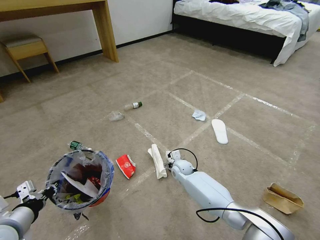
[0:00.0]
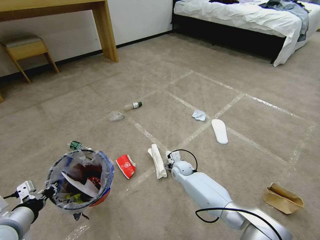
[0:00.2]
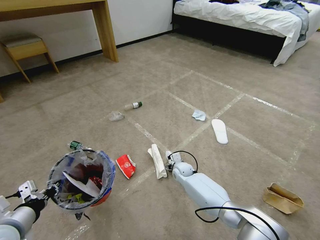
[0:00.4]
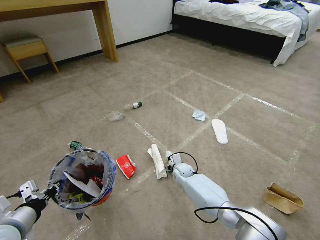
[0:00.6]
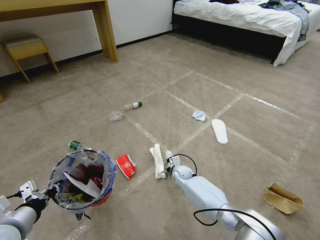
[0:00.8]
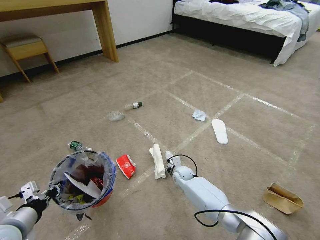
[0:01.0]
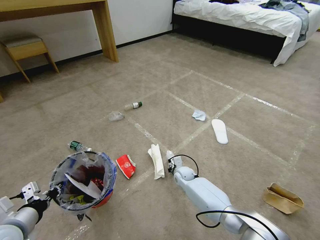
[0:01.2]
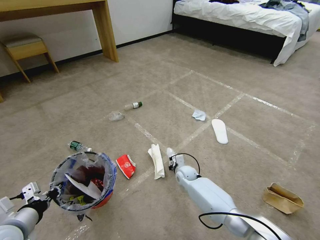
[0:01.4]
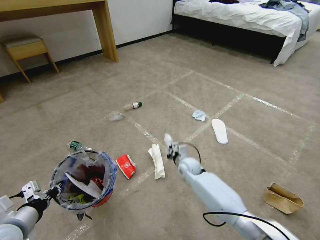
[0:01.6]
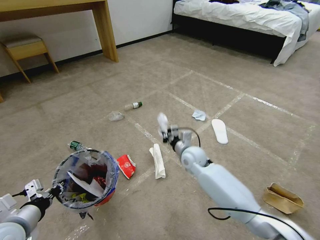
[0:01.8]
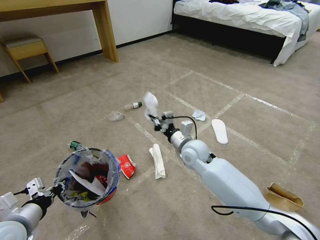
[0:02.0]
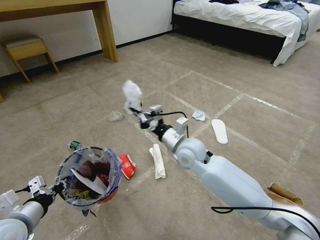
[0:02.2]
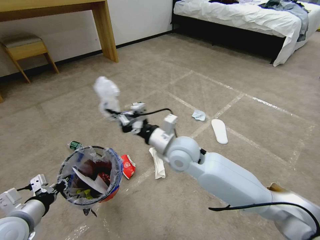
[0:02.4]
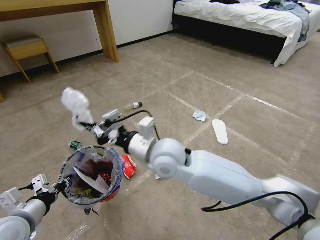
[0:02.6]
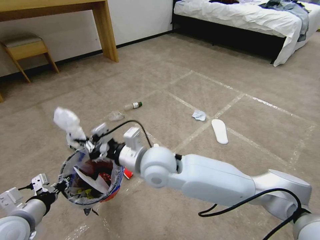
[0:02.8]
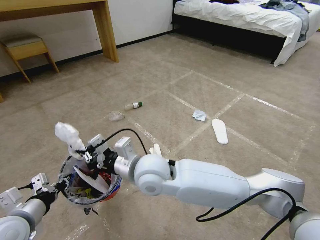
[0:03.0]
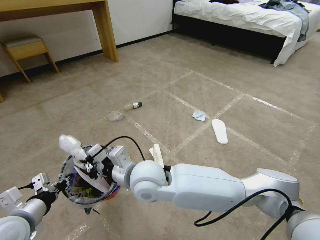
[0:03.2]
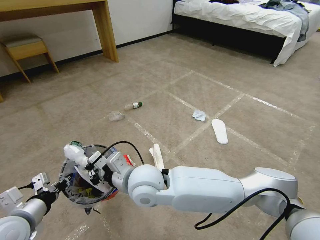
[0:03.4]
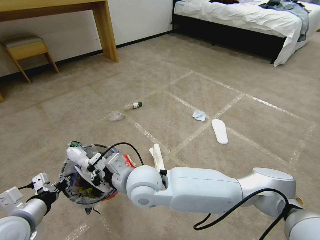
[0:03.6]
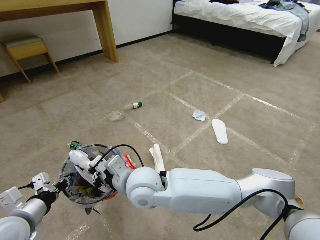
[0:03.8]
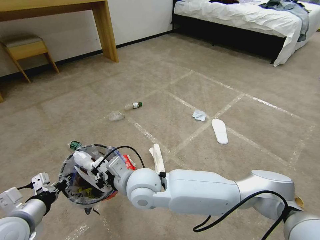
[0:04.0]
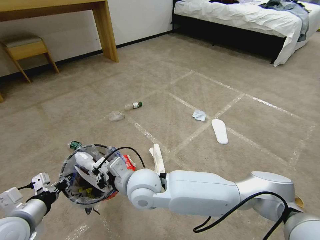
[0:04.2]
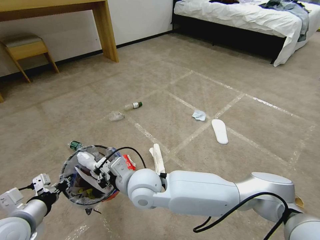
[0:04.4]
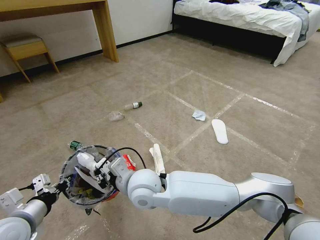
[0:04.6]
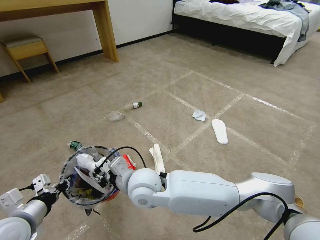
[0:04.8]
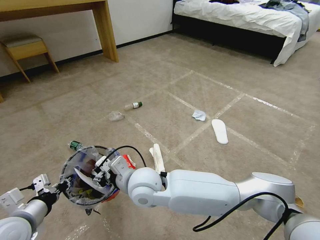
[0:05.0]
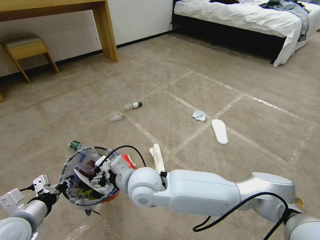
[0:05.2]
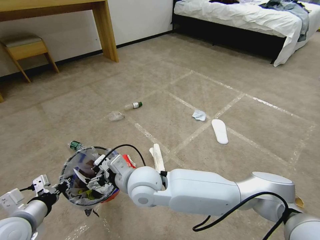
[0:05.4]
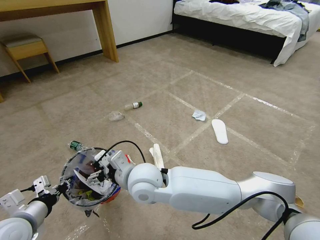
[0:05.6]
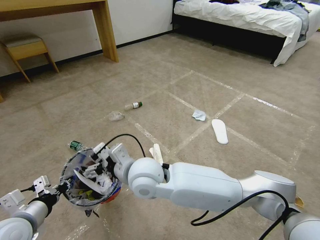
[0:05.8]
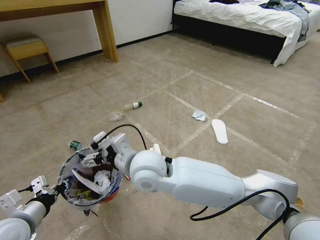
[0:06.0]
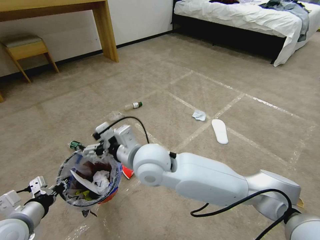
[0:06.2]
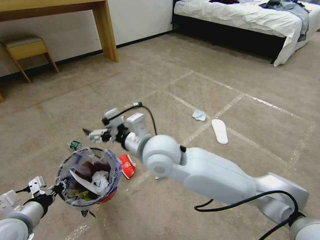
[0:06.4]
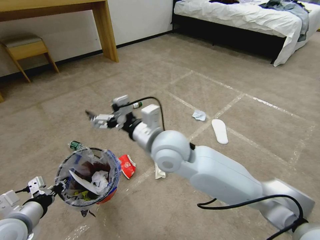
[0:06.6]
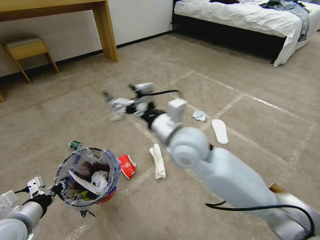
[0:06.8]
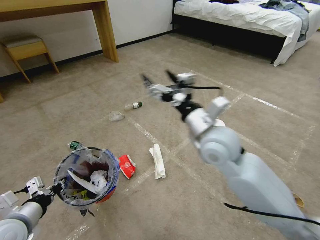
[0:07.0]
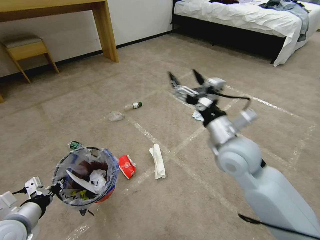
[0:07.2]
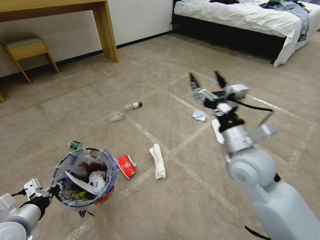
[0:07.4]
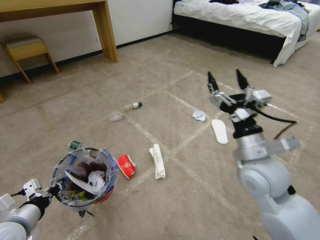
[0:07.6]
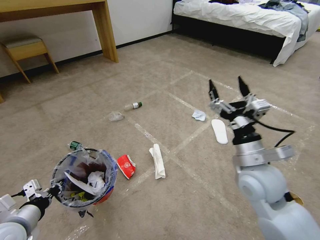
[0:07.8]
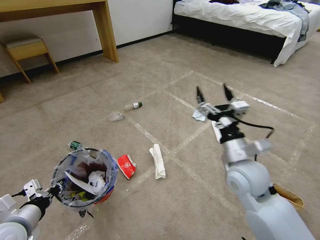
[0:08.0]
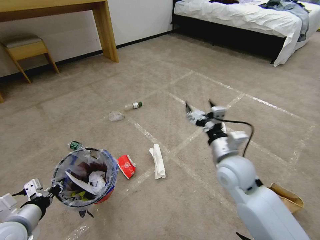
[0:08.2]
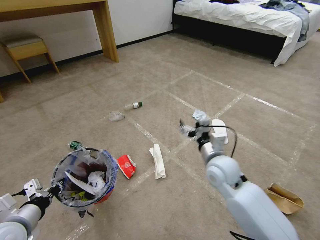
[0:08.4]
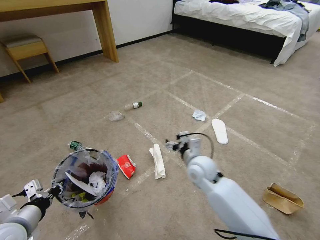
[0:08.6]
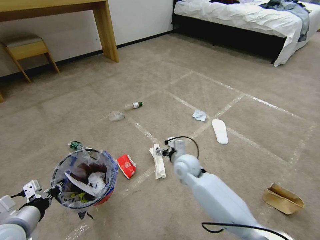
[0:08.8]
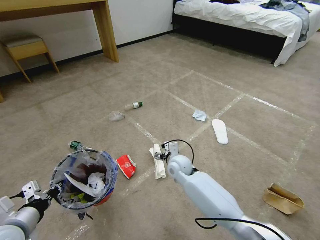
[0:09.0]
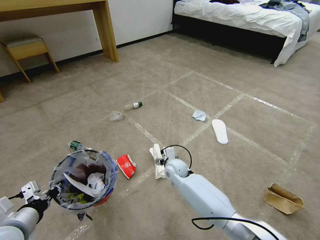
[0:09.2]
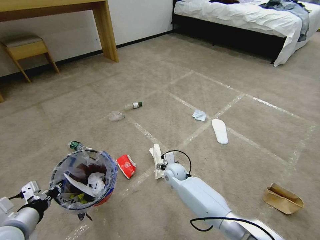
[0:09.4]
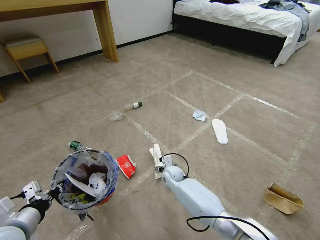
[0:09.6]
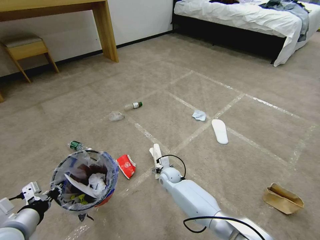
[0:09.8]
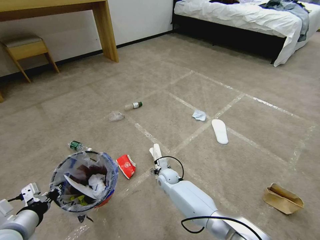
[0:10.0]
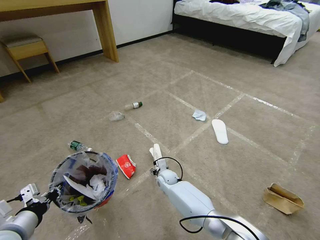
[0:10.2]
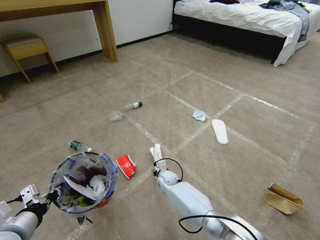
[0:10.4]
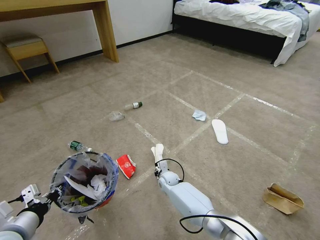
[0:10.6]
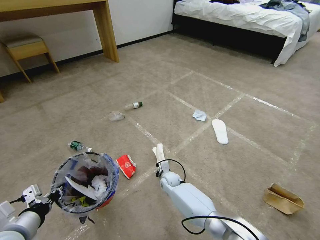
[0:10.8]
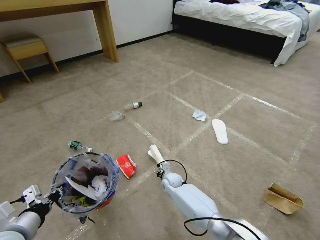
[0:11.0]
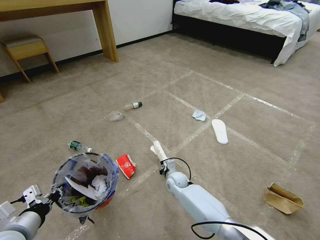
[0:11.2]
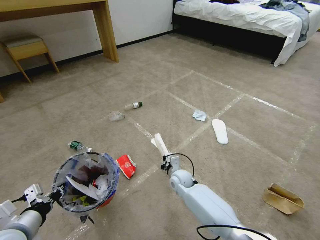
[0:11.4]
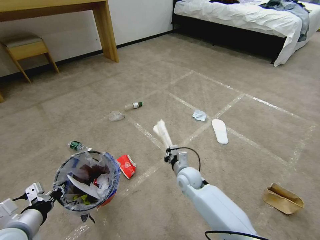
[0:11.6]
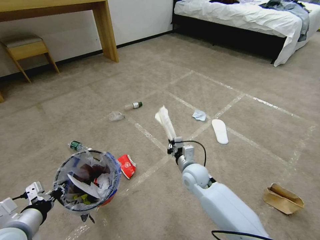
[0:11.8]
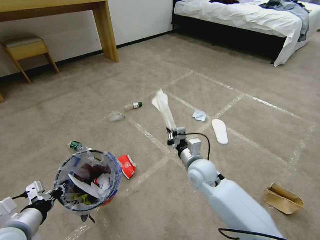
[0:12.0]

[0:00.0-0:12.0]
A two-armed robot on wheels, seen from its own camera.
Task of the whole recording: Pick up the trash bin and place the garbage on the floor into it.
0:00.0 to 0:01.6: The right gripper goes about 5 cm upward, and closes.
0:01.6 to 0:03.0: The right gripper heads upward, to the left and backward, covering roughly 30 cm.
0:03.0 to 0:04.4: The right gripper changes place by approximately 5 cm.
0:04.4 to 0:06.0: The right gripper moves upward, some 5 cm, and opens its fingers.
0:06.0 to 0:07.6: The right gripper heads to the right, covering about 30 cm.
0:07.6 to 0:09.0: The right gripper travels downward, to the left and forward by about 30 cm.
0:09.0 to 0:10.4: The right gripper is displaced downward by roughly 15 cm, and closes its fingers.
0:10.4 to 0:12.0: The right gripper moves upward and to the right, roughly 25 cm, and closes its fingers.

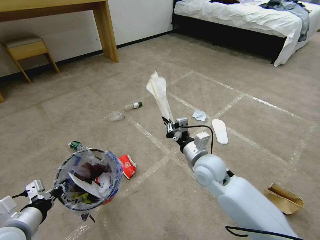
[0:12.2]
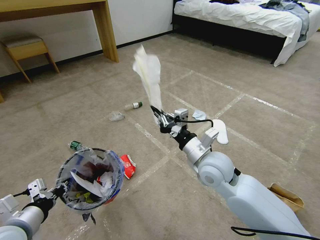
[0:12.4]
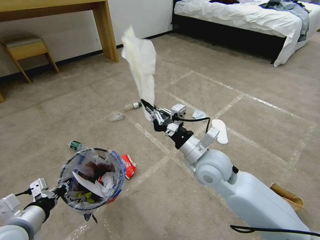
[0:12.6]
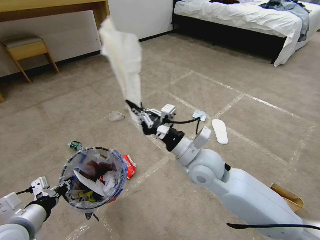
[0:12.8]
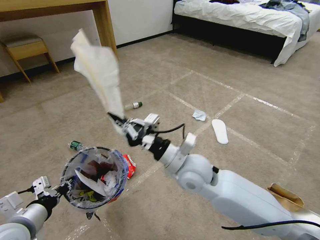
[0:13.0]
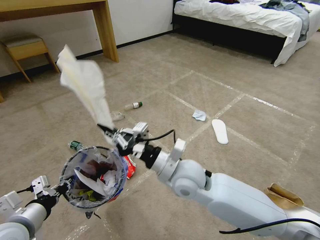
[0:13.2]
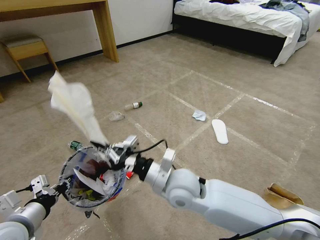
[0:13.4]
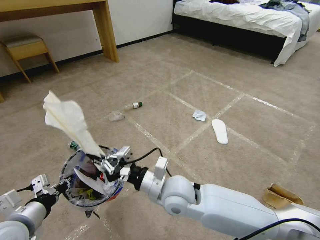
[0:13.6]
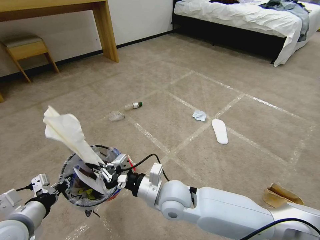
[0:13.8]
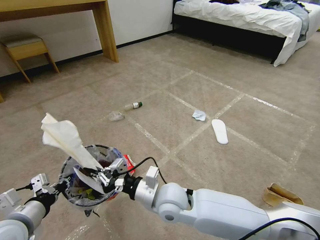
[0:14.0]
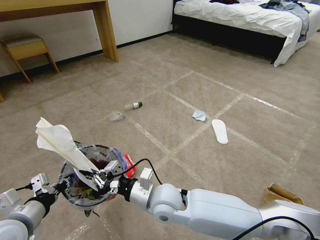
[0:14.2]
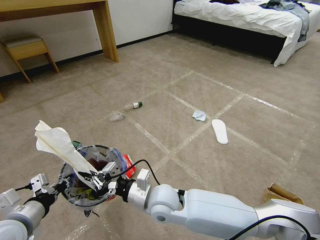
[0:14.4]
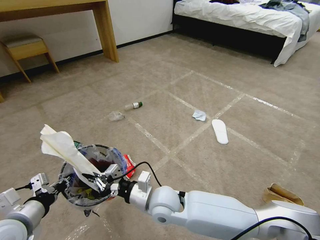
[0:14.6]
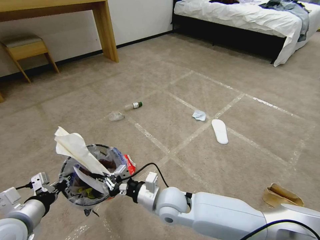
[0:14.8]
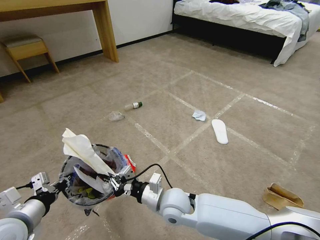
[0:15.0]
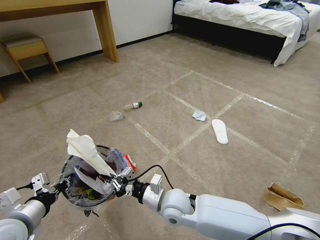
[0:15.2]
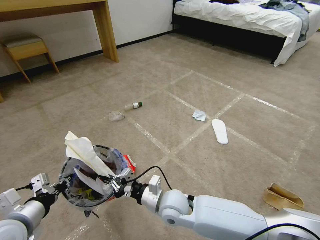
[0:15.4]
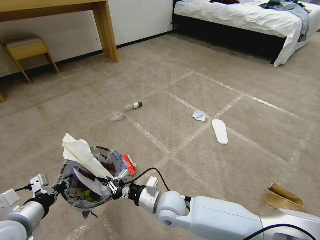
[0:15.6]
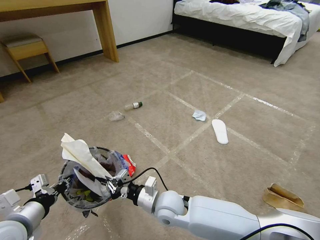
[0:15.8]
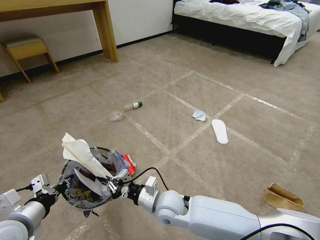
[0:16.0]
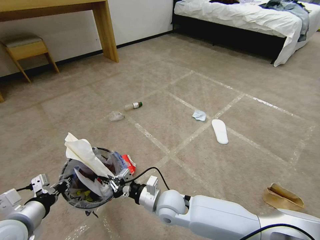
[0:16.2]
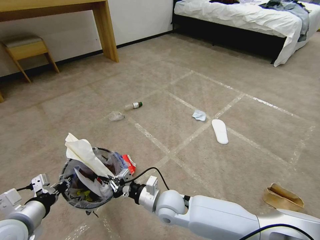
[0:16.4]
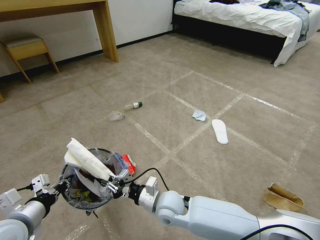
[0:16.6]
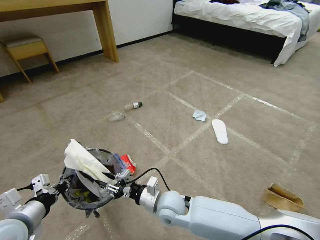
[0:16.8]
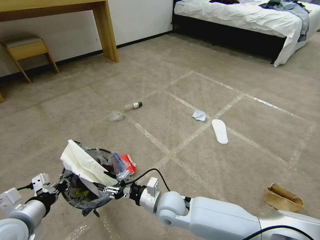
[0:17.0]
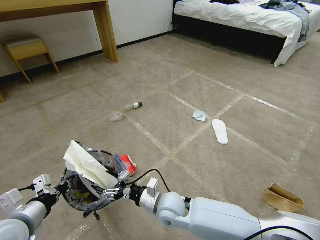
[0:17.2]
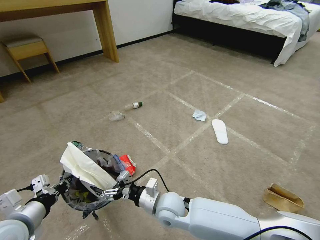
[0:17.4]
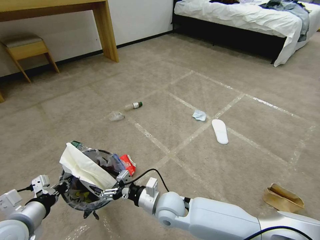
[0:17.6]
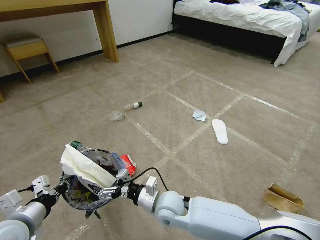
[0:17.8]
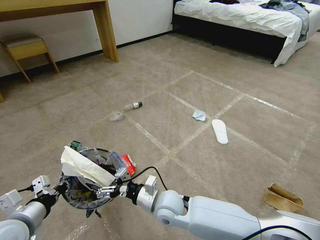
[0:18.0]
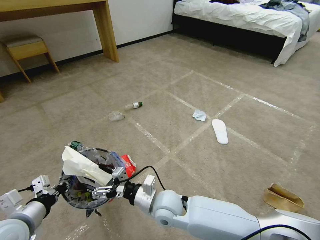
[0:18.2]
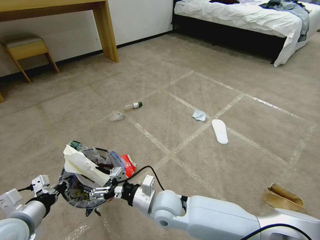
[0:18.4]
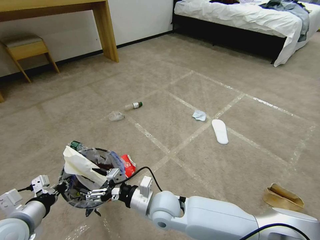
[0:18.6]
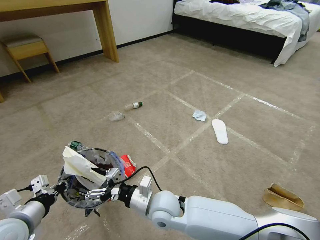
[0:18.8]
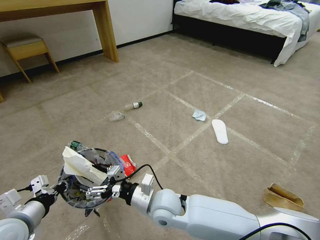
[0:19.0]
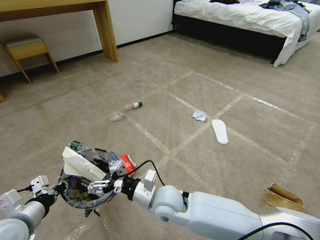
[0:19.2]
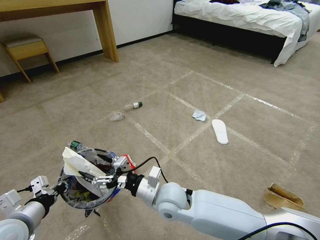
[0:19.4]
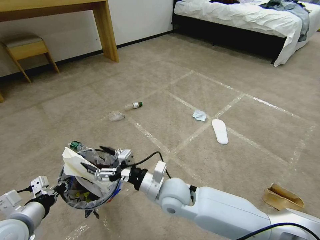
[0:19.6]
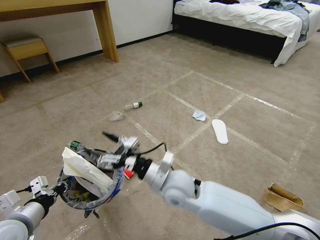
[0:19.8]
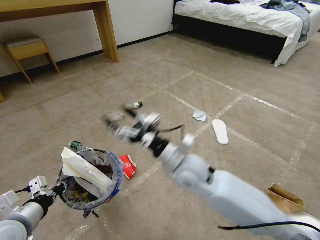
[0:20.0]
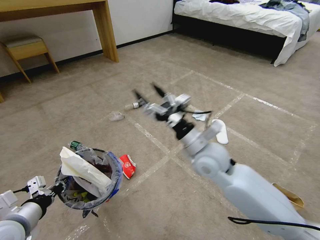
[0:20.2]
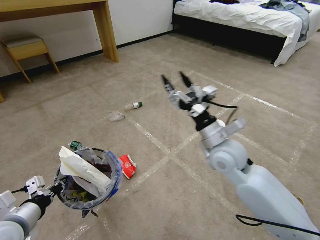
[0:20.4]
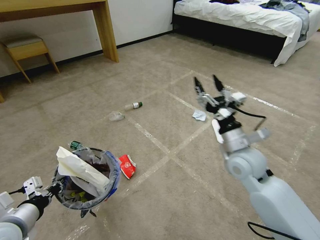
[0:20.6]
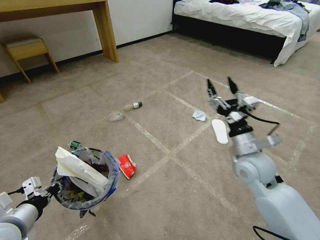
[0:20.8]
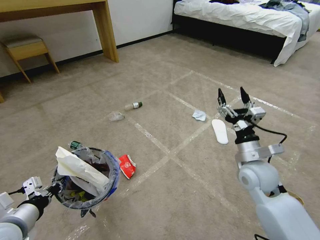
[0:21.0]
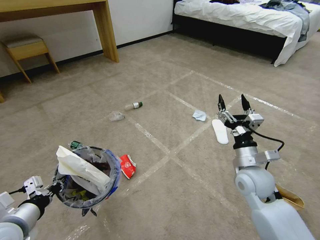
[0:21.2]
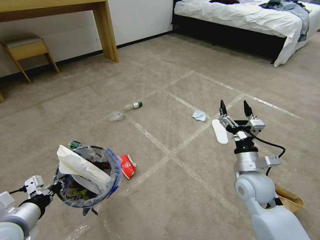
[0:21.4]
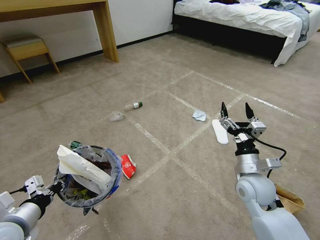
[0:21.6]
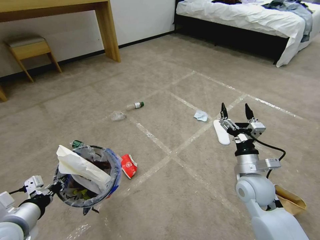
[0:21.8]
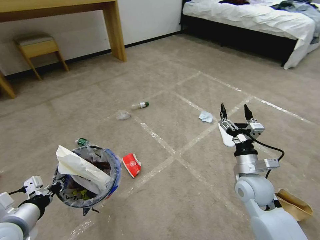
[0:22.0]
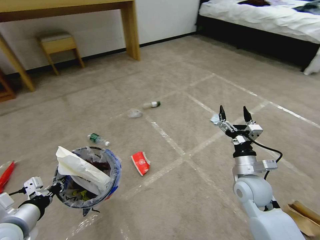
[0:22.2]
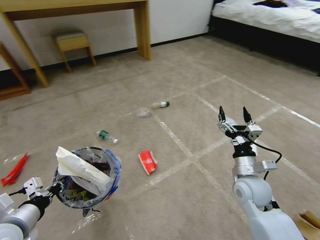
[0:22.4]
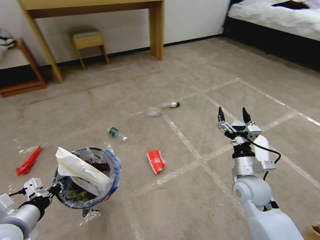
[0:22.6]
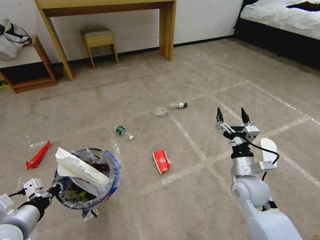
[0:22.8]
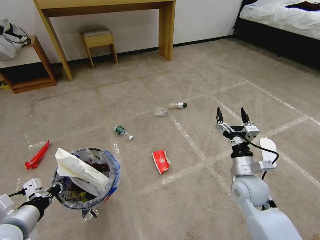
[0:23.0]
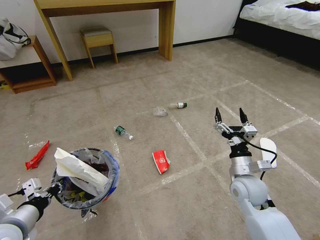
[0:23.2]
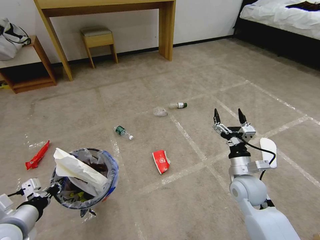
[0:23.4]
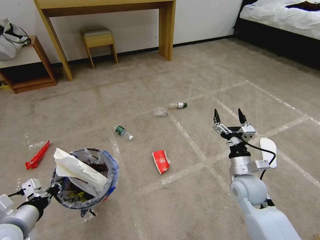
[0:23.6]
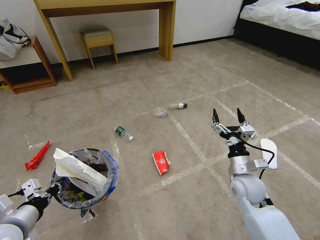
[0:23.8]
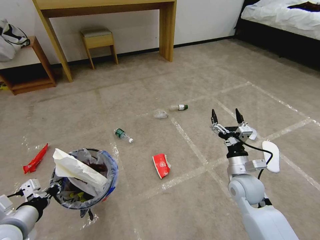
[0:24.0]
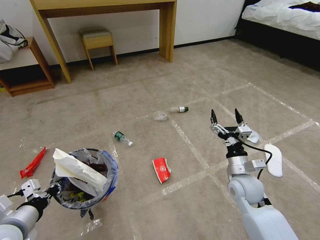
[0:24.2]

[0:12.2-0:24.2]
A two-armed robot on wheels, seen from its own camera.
Task of the whole recording: Pick up the trash bin and place the garbage on the floor into it.
0:12.2 to 0:13.8: The right gripper heads to the left and backward, covering about 15 cm.
0:13.8 to 0:15.2: The right gripper heads downward, covering approximately 5 cm.
0:15.2 to 0:16.6: There are only small adjustments of the grippers.
0:16.6 to 0:18.2: The right gripper opens.
0:18.2 to 0:19.8: The right gripper heads upward, covering approximately 5 cm.
0:19.8 to 0:21.2: The right gripper shifts some 25 cm to the right.
